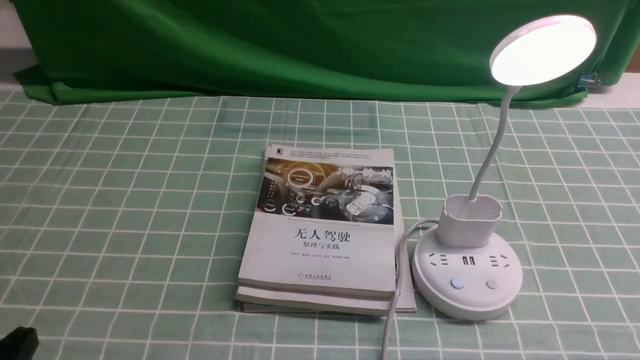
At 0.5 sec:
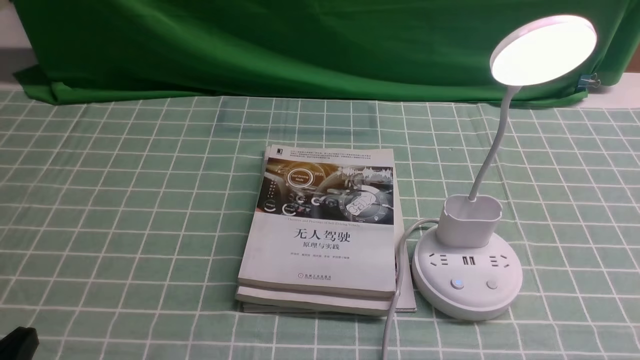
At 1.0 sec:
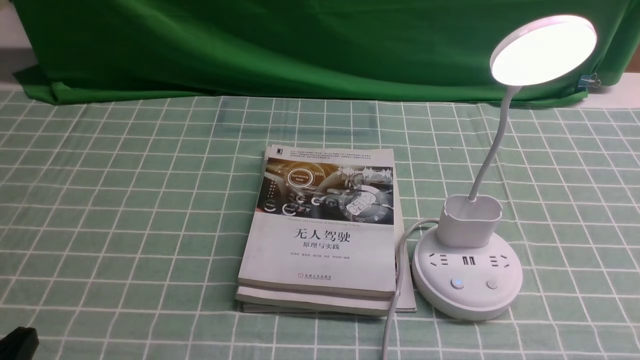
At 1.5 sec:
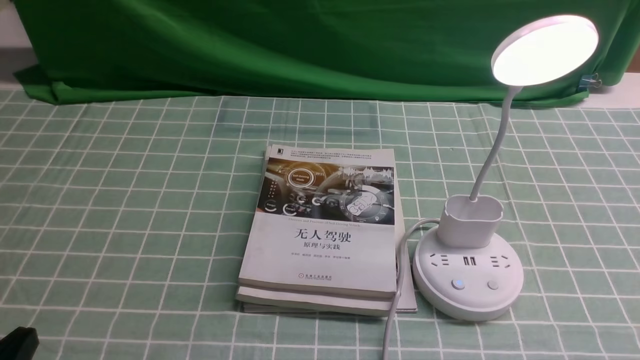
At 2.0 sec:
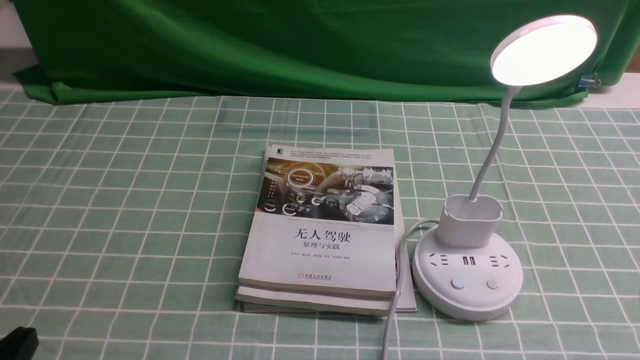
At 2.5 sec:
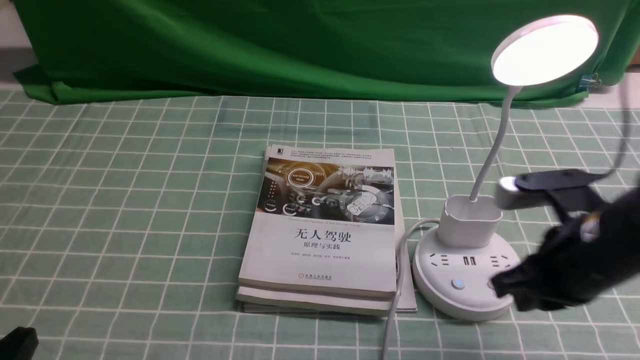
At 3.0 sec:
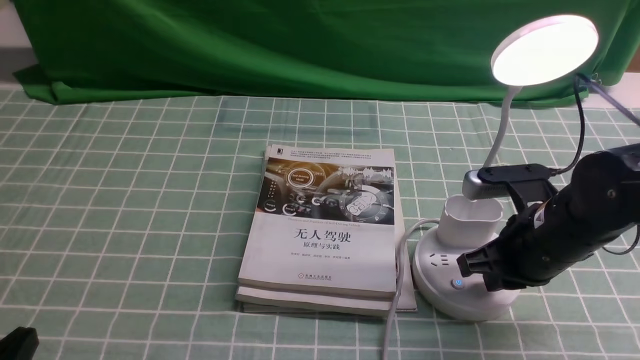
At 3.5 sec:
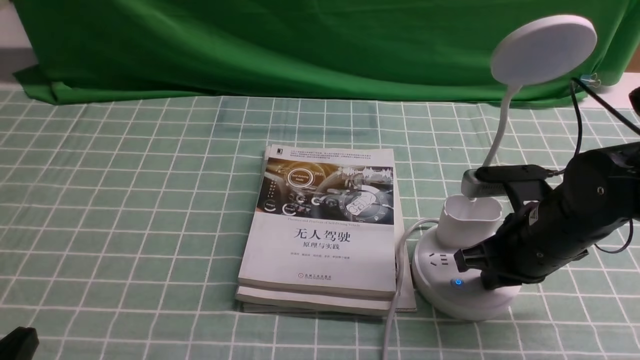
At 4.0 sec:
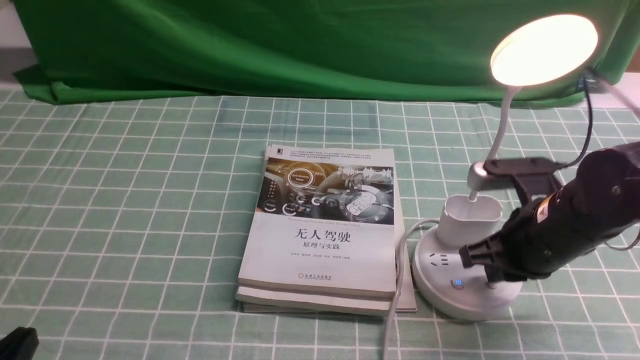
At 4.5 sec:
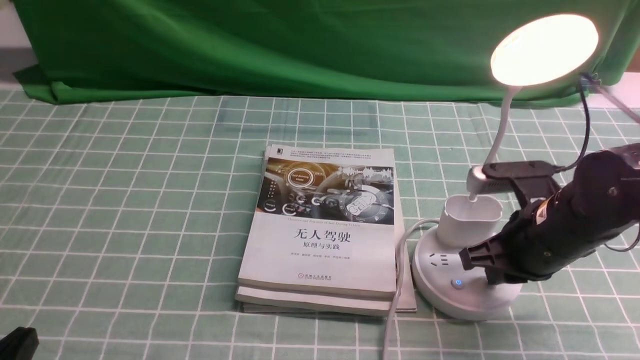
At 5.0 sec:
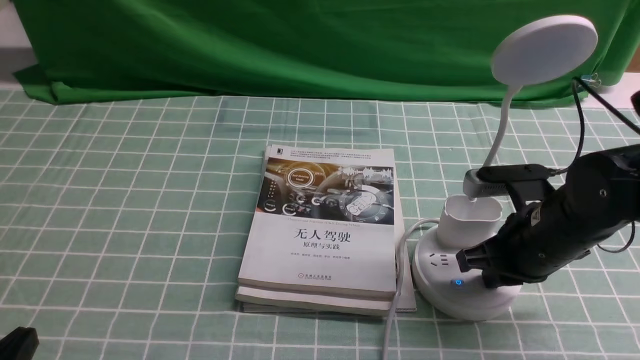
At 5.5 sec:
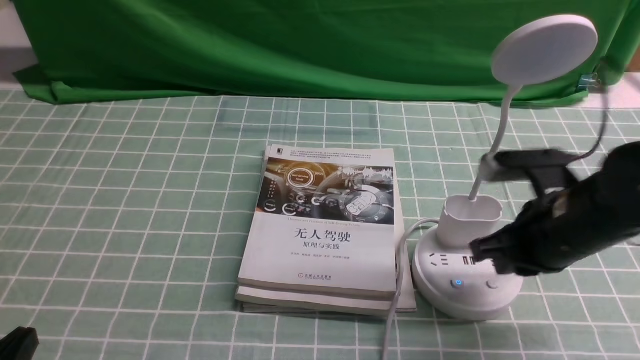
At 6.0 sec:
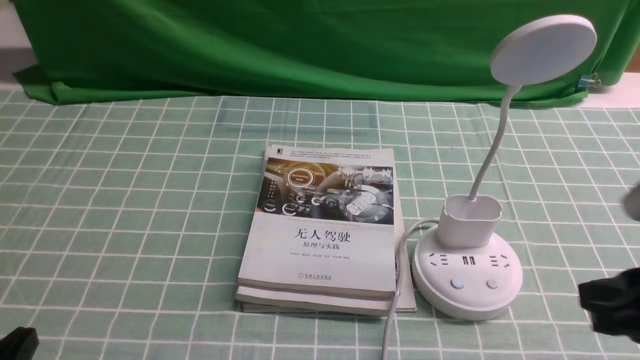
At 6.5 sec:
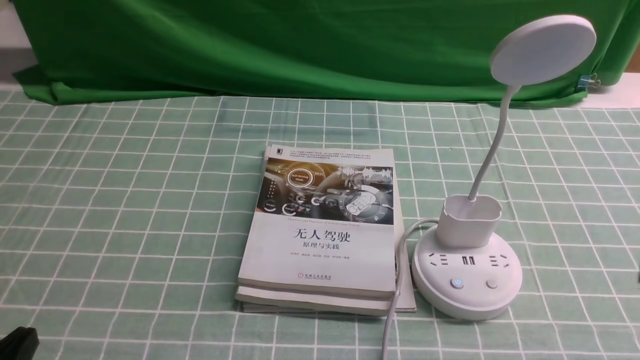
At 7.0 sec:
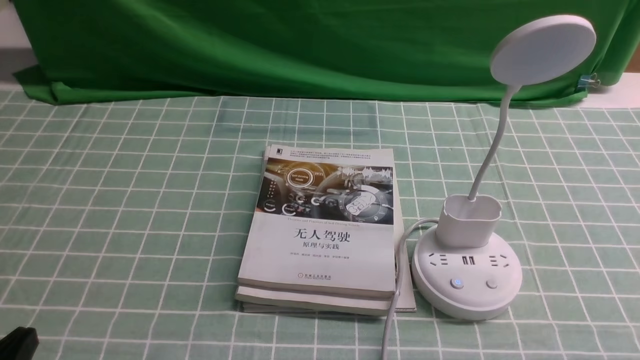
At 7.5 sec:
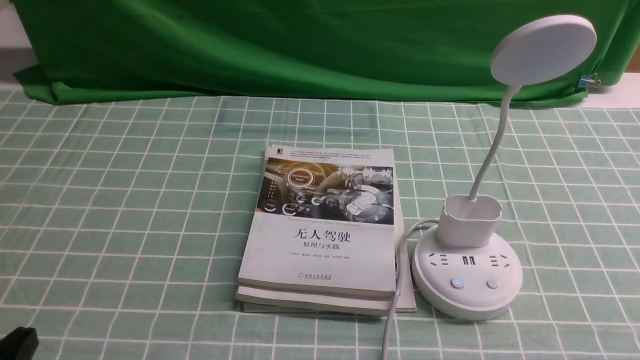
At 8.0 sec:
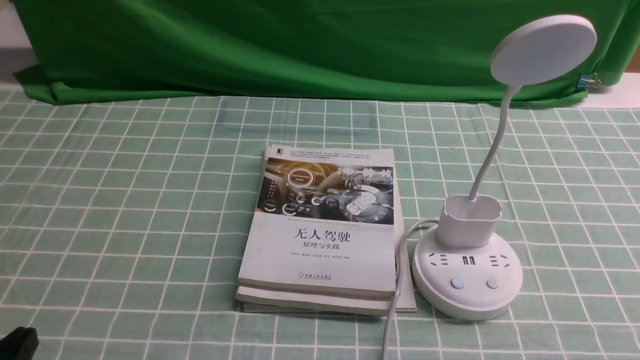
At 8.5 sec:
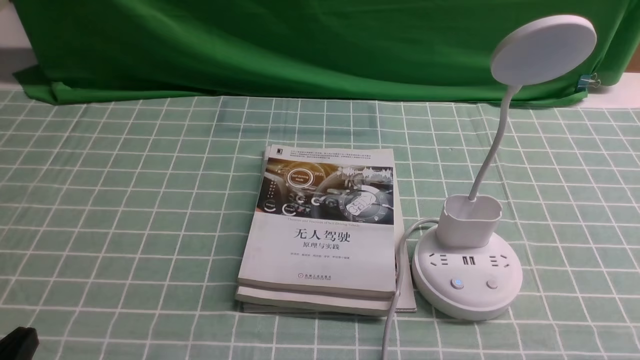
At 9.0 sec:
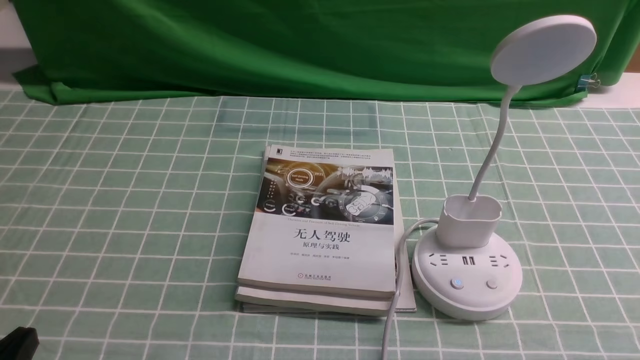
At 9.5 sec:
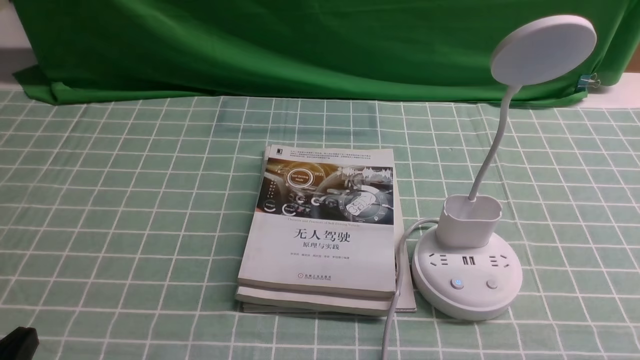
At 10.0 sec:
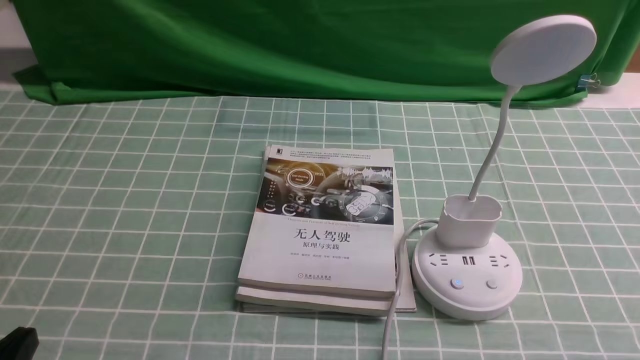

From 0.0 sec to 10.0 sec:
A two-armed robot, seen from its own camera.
Task of the whole recording: turn off the desk lamp on the blue coffee tablecloth by hand.
Step, from 0.0 sec to 5.0 sec: use the right arm to press the button switch on the lamp holder.
From 2.0 sec to 4.0 sec: The right gripper goes roughly 20 cm forward, downward and to the left.
From 4.0 sec to 6.0 sec: The right gripper goes about 15 cm backward and upward.
From 6.0 sec to 8.0 sec: The right gripper moves downward and backward, roughly 15 cm.
